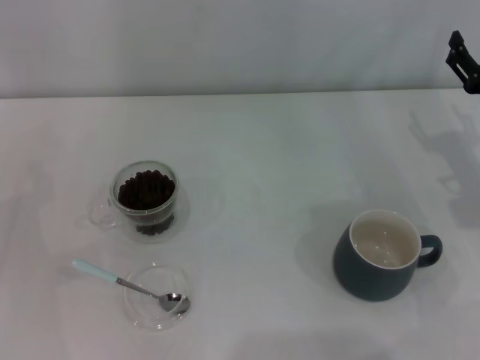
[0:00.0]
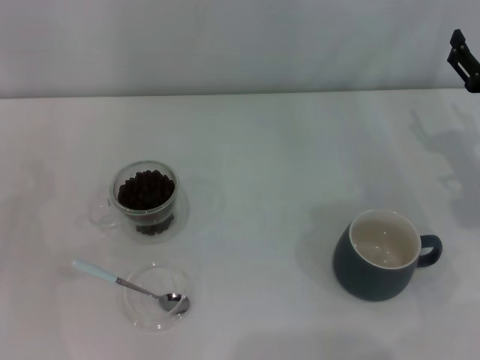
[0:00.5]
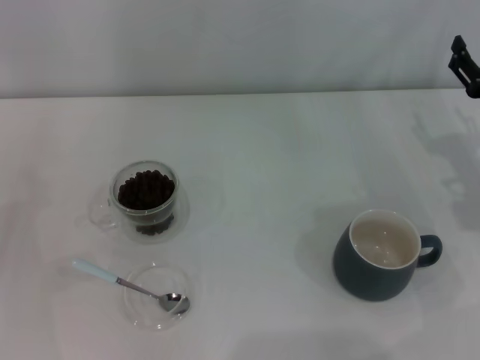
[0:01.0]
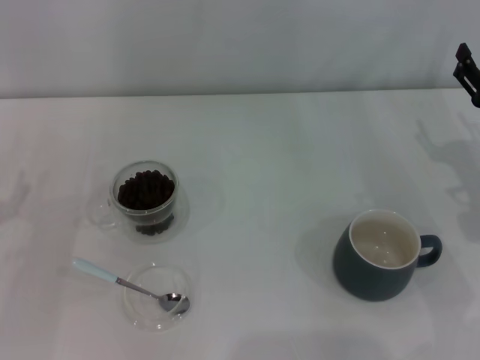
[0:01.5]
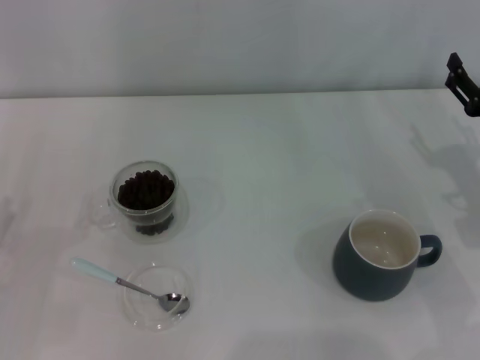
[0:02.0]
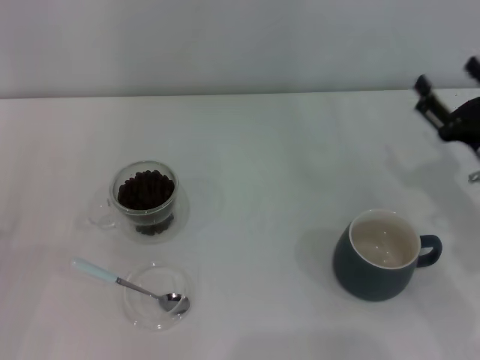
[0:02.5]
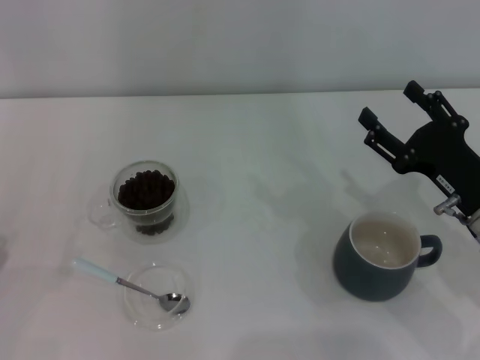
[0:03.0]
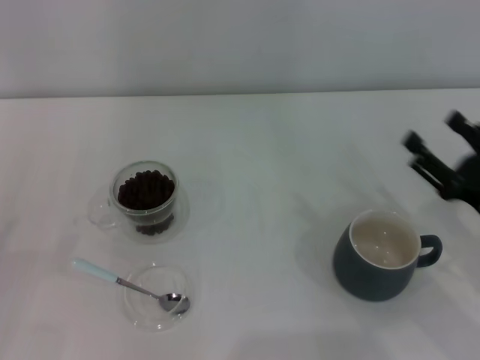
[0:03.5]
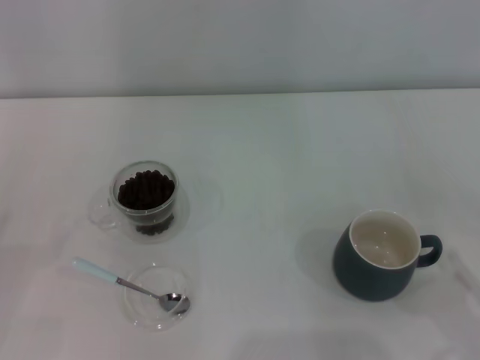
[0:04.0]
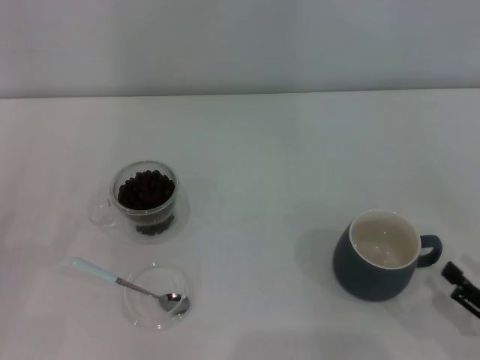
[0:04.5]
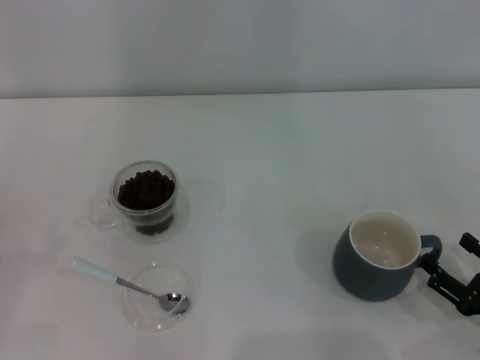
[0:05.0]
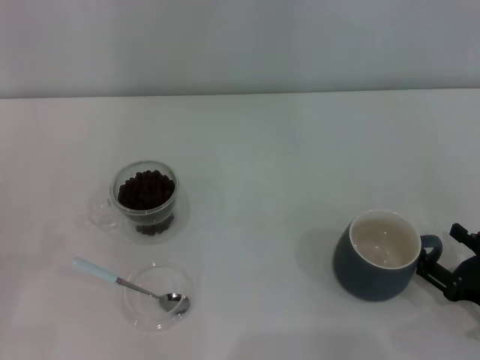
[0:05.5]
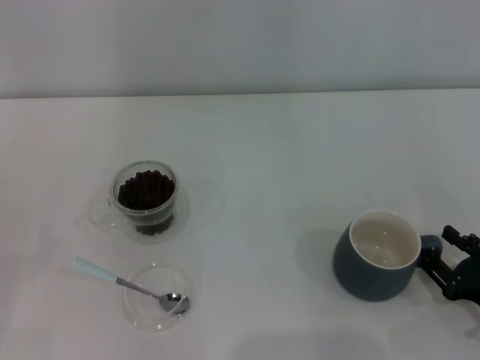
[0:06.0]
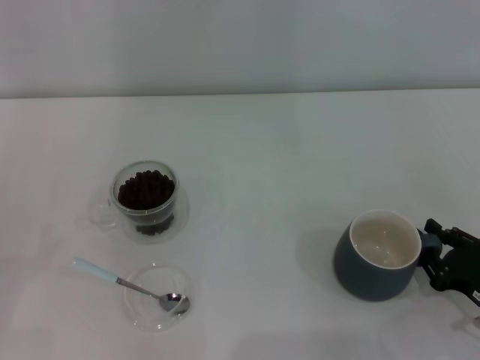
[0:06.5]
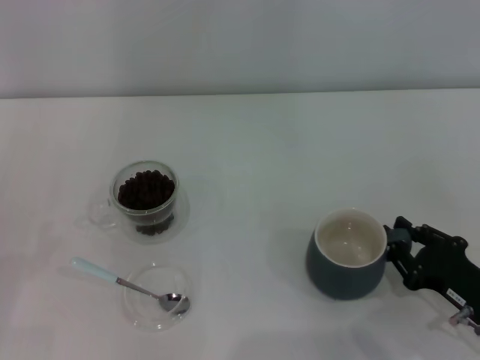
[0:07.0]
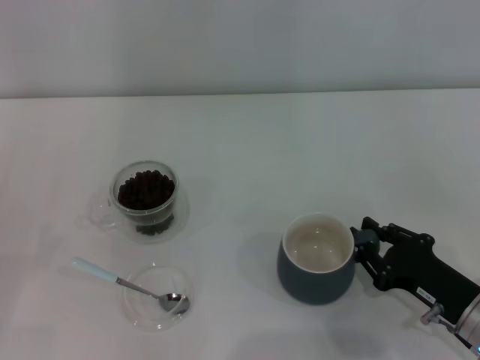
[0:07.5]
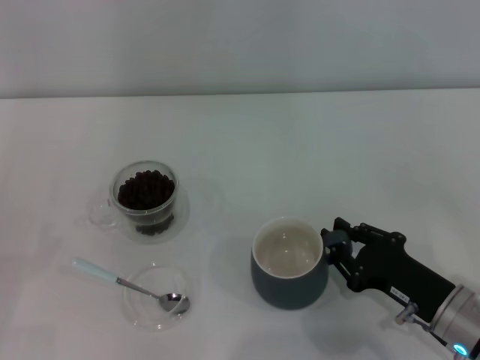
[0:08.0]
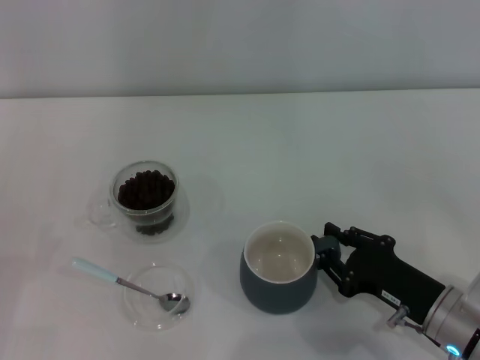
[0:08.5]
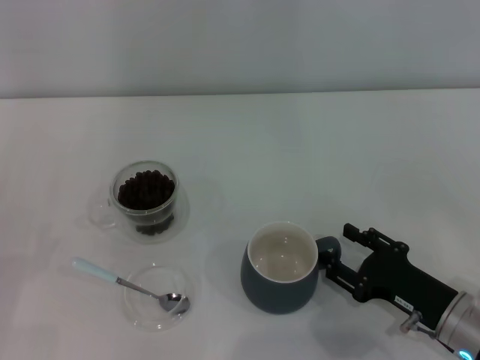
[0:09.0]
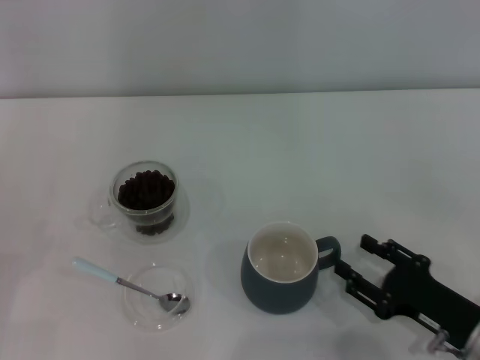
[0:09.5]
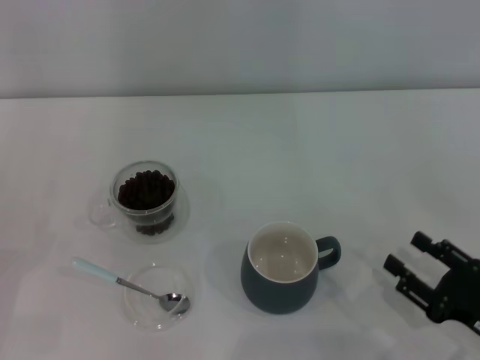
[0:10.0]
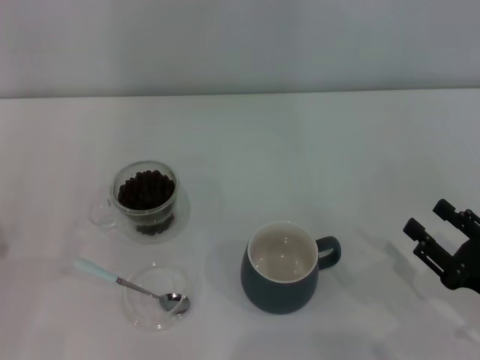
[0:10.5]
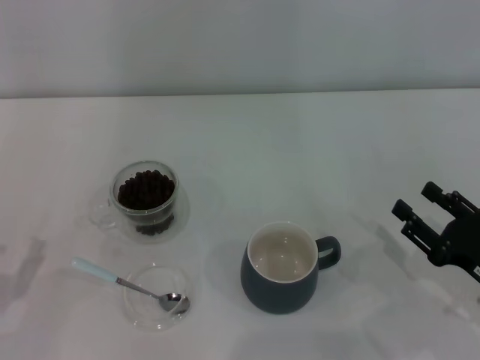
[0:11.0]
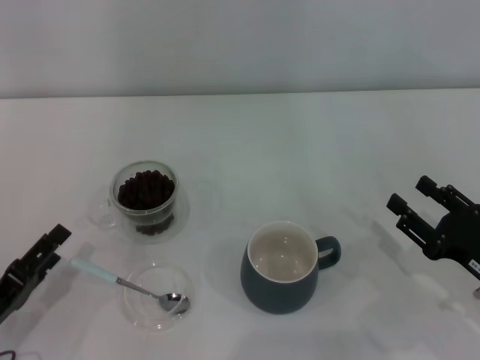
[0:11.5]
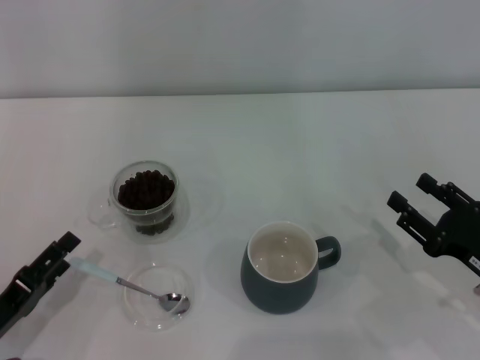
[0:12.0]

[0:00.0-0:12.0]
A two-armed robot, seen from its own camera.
Task of the whole recording: Use a blue spoon to take out the coffee beans from the glass and pour them into the gray cup.
Step, 0:00.0 to 0:09.5: Move the cup to the center of view with the left gripper.
0:02.0 to 0:04.0: The right gripper travels backward by approximately 20 cm.
0:04.0 to 0:06.0: The right gripper moves some 5 cm.
0:06.0 to 0:08.0: The right gripper goes approximately 10 cm to the left, and closes its fingers.
0:08.0 to 0:10.0: The right gripper heads to the right and backward, covering roughly 10 cm, and opens up.
0:10.0 to 0:12.0: The right gripper is displaced forward by roughly 5 cm, while the left gripper goes about 10 cm to the right.

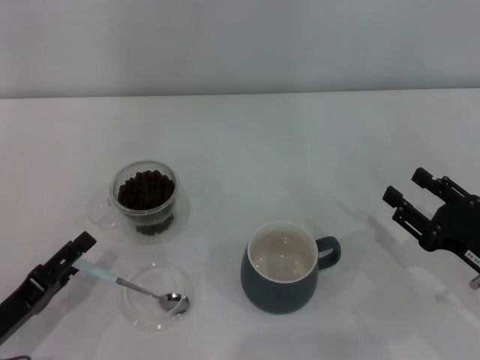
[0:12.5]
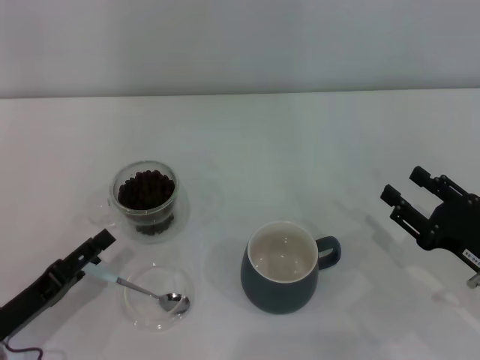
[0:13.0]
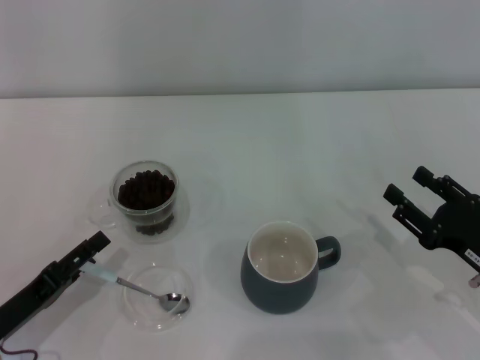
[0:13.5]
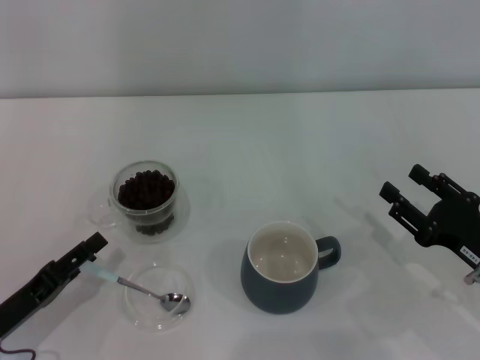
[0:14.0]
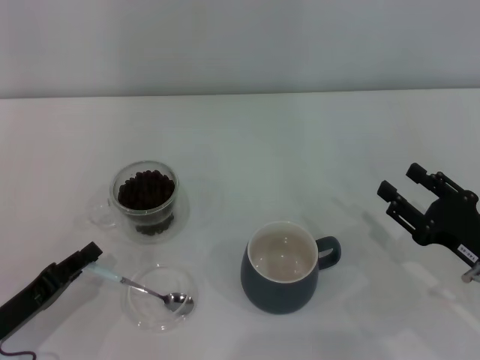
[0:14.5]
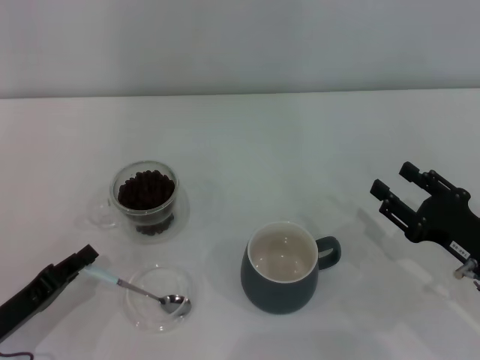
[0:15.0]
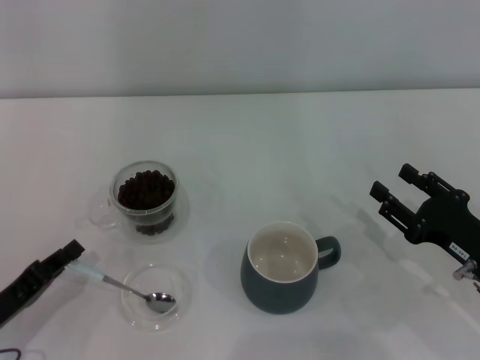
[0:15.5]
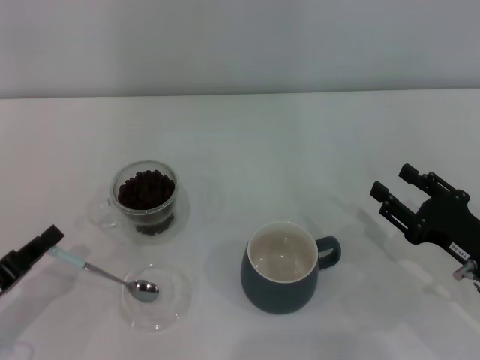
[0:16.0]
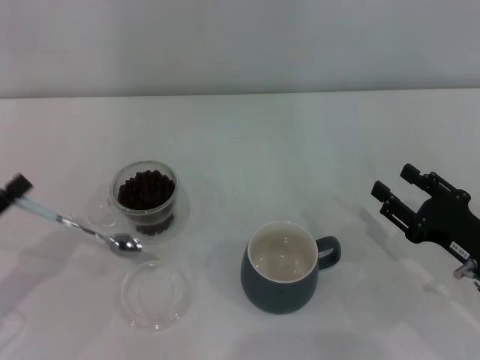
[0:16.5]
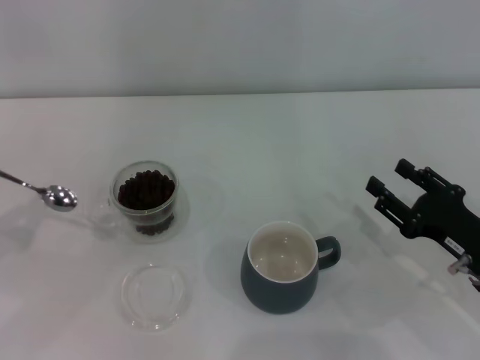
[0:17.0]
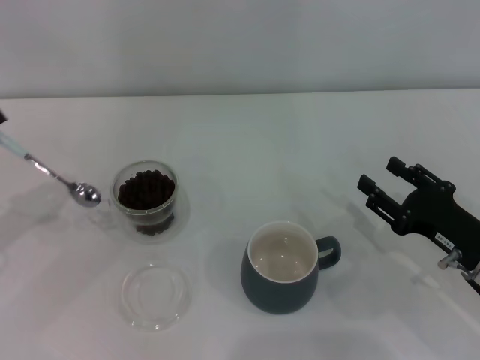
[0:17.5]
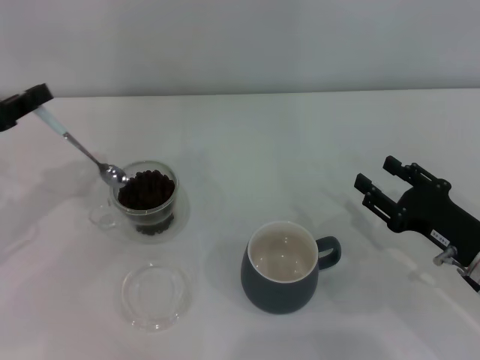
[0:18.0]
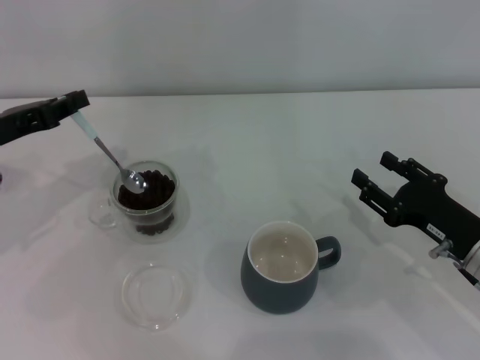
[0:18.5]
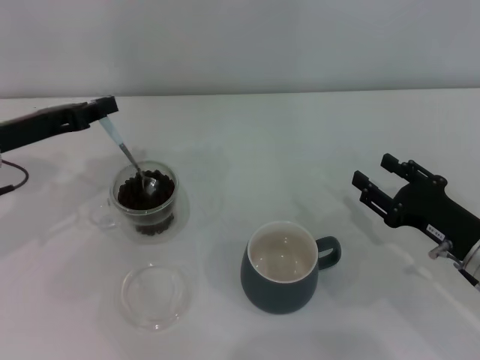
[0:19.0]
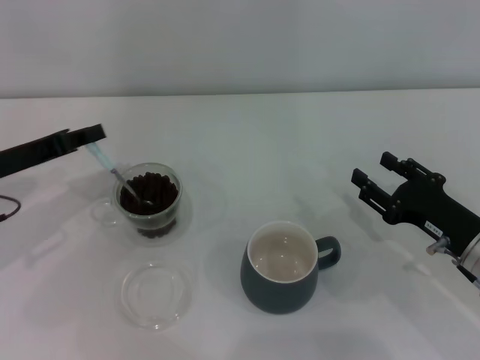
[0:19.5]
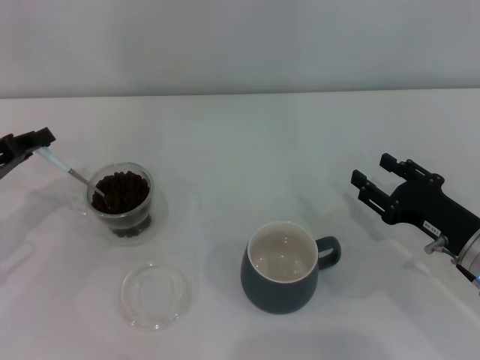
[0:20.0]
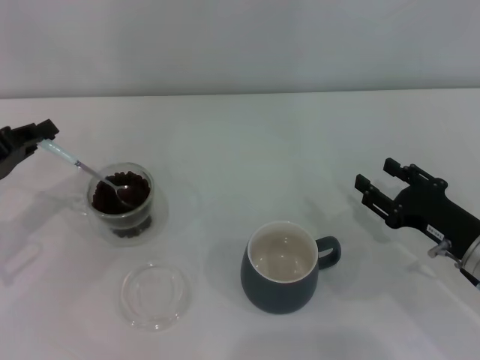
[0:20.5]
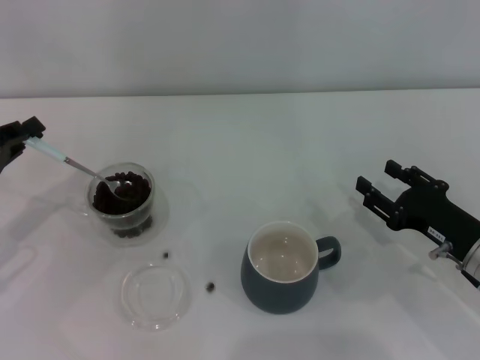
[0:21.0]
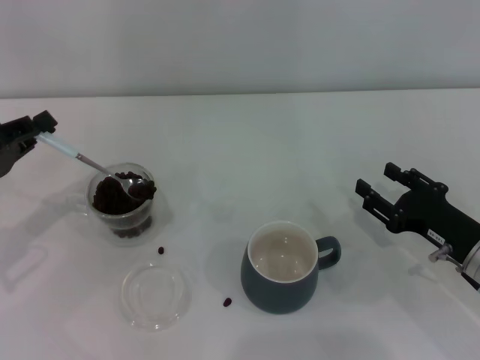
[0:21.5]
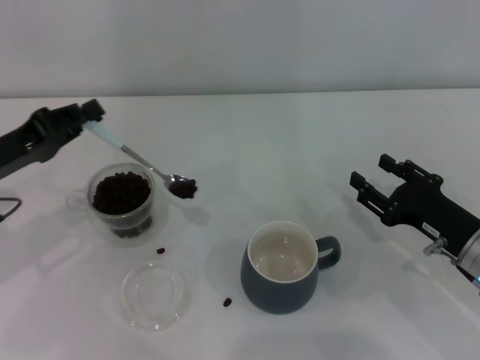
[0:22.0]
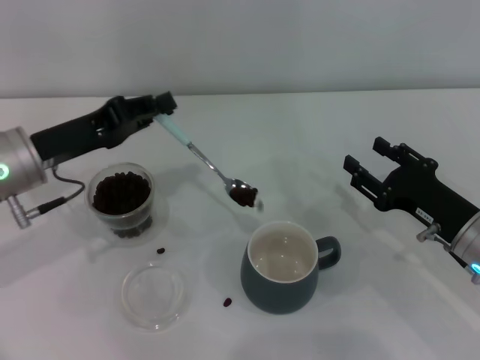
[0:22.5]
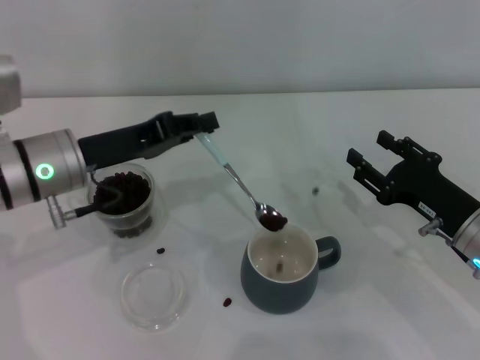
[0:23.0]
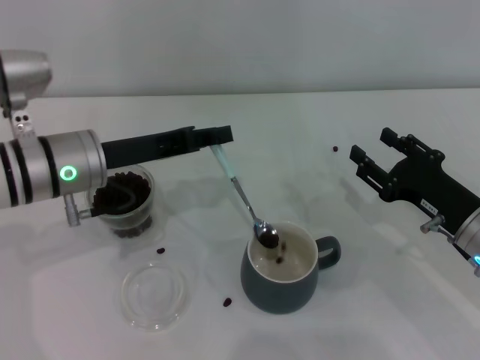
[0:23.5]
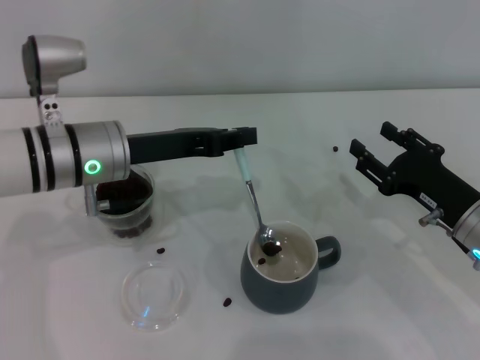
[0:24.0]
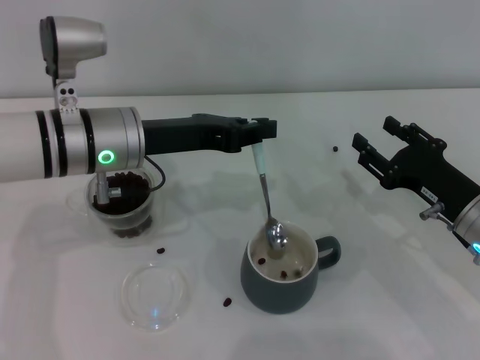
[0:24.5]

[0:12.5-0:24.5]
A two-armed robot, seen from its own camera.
Task of the whole recording: Use a blue spoon to take out the coffee beans from the glass and pour them into the gray cup.
Step, 0:12.5 to 0:16.0: Pick up the spoon with the right gripper.
0:12.5 to 0:14.5: The left gripper closes.
0:14.5 to 0:16.5: The left gripper travels upward by some 5 cm.
0:16.5 to 0:18.5: The left gripper moves forward and upward, approximately 15 cm.
0:18.5 to 0:20.5: The left gripper ends up about 5 cm from where it was.
0:20.5 to 0:22.5: The left gripper is displaced to the right by approximately 10 cm.
0:22.5 to 0:24.5: The left gripper heads to the right, covering some 10 cm.

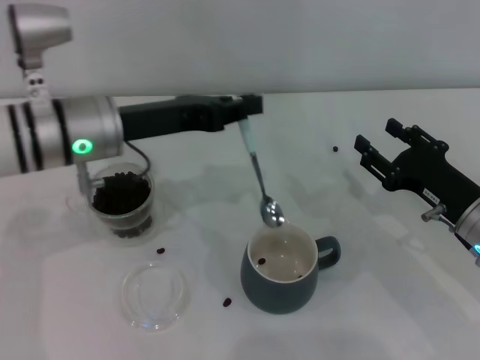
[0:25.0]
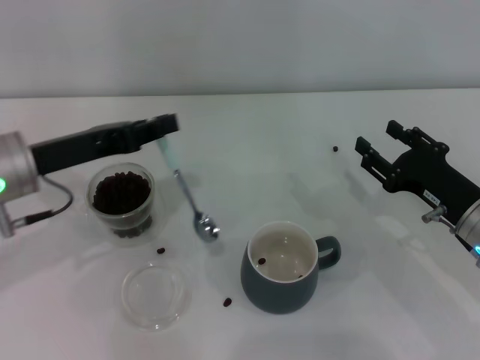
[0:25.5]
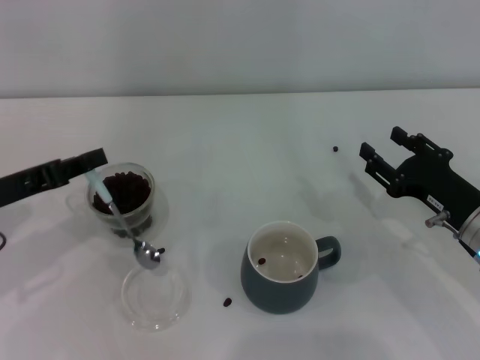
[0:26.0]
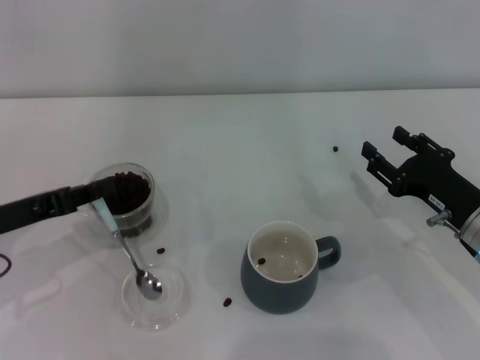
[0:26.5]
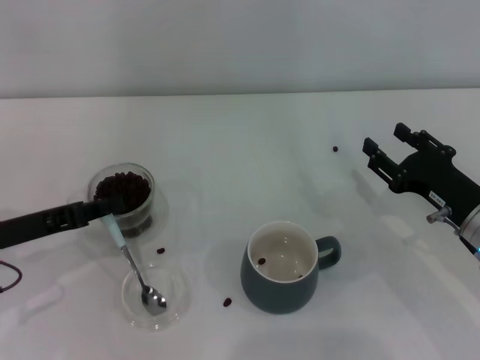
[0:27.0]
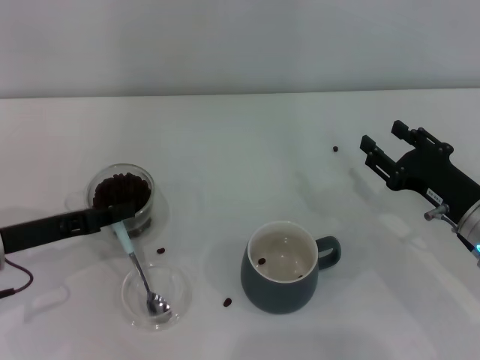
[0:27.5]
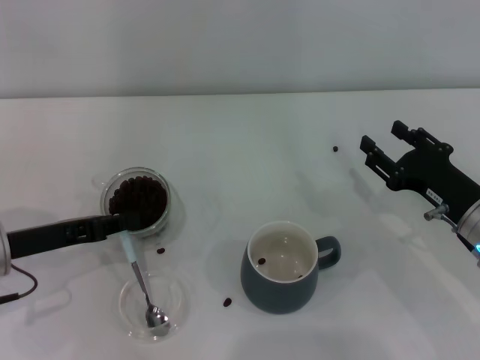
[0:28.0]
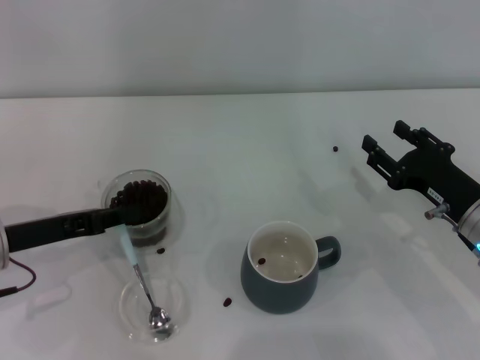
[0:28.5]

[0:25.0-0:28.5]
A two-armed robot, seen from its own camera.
Task of the whole recording: Use a blue spoon to take out the coffee beans from the glass and pour them into the gray cup.
0:25.0 to 0:27.0: The left gripper is displaced to the left, downward and backward by some 15 cm.
0:27.0 to 0:28.5: The grippers move only a little.
